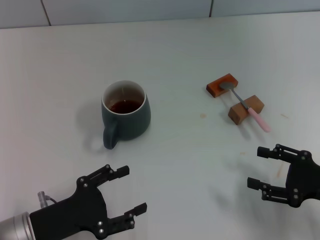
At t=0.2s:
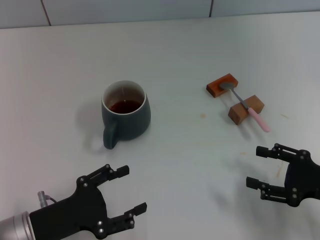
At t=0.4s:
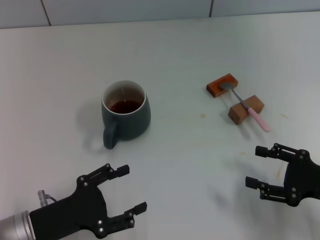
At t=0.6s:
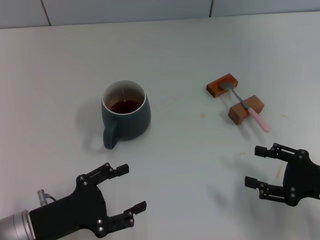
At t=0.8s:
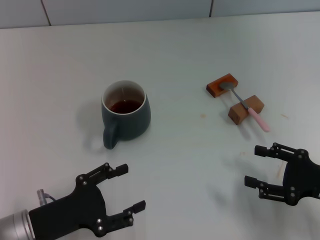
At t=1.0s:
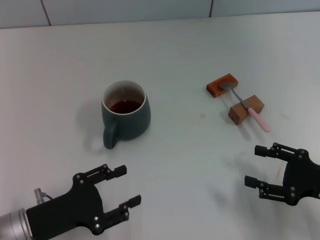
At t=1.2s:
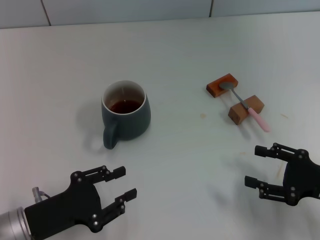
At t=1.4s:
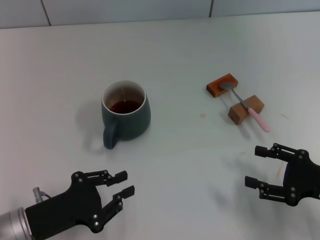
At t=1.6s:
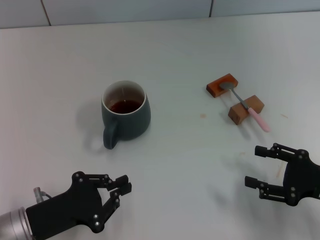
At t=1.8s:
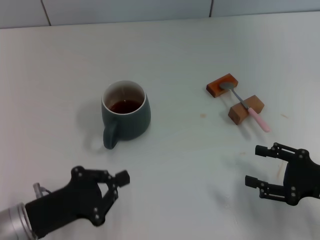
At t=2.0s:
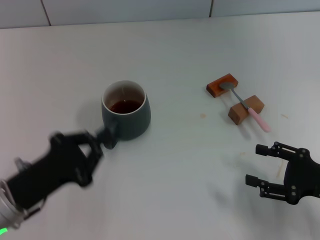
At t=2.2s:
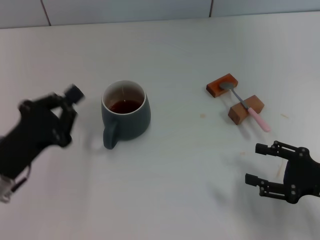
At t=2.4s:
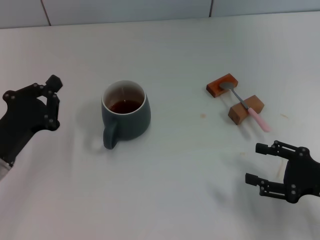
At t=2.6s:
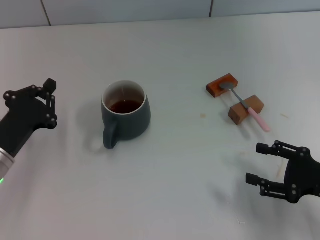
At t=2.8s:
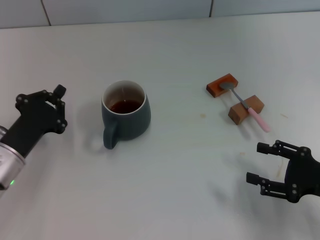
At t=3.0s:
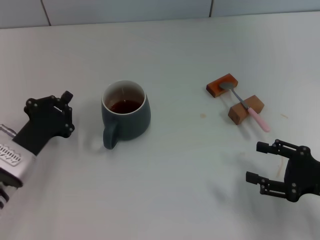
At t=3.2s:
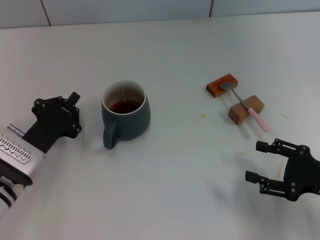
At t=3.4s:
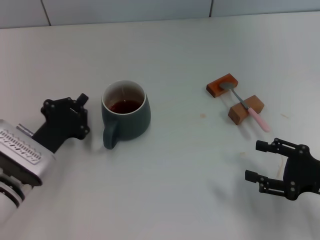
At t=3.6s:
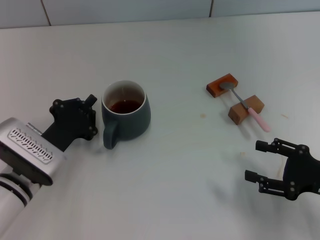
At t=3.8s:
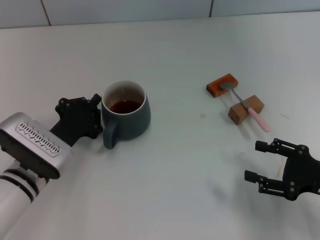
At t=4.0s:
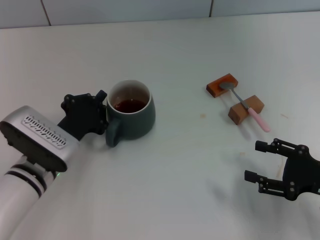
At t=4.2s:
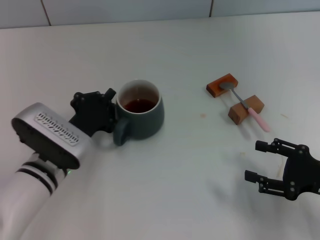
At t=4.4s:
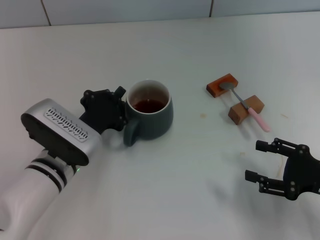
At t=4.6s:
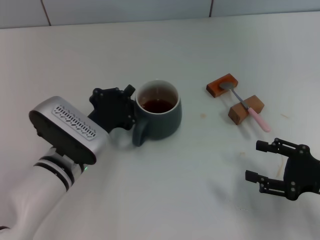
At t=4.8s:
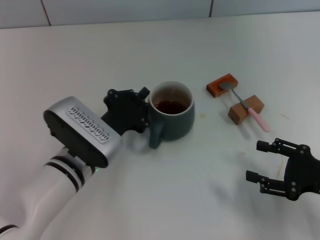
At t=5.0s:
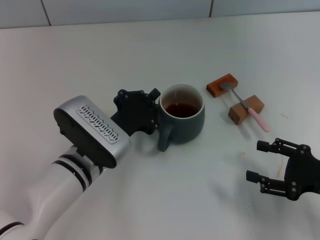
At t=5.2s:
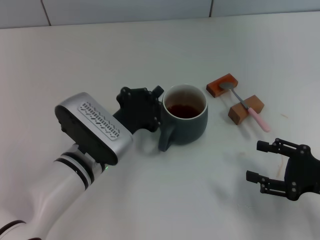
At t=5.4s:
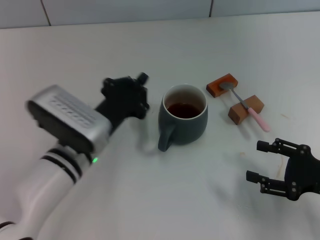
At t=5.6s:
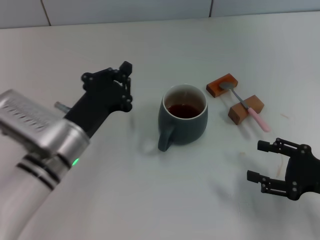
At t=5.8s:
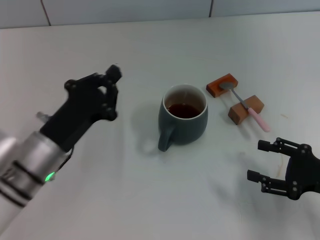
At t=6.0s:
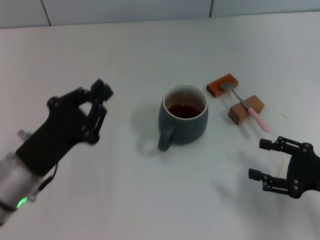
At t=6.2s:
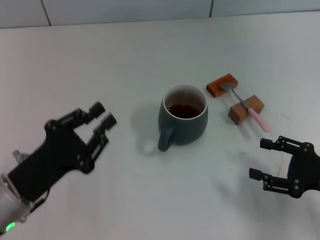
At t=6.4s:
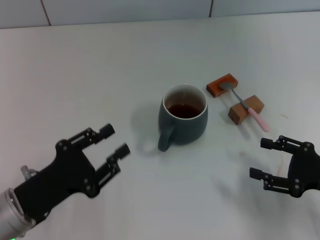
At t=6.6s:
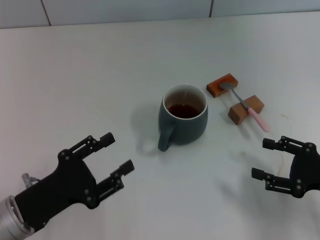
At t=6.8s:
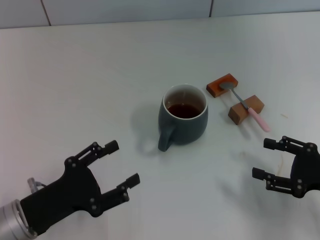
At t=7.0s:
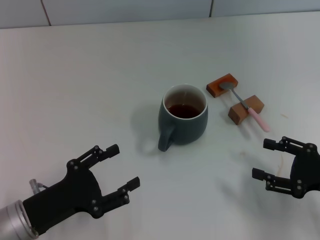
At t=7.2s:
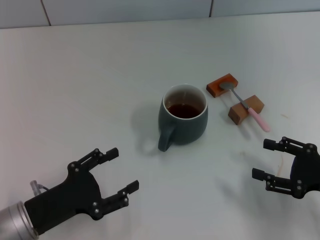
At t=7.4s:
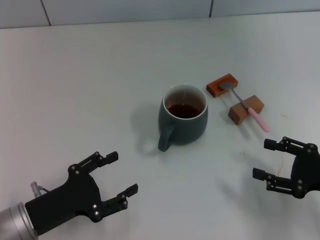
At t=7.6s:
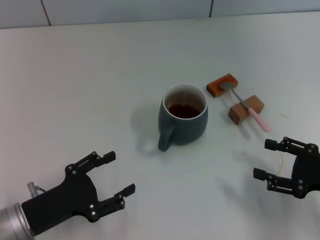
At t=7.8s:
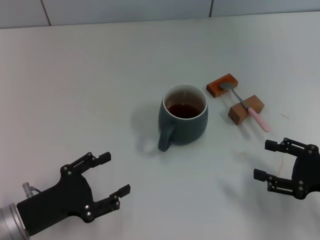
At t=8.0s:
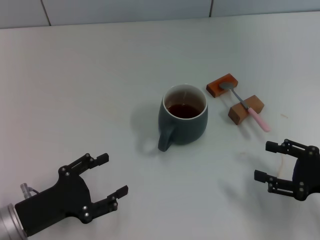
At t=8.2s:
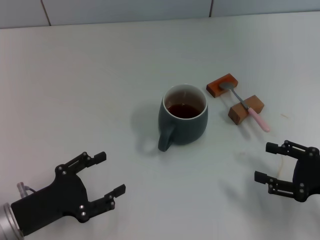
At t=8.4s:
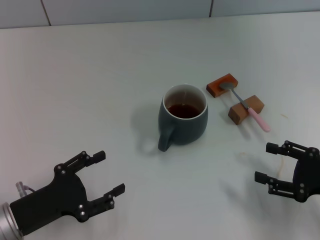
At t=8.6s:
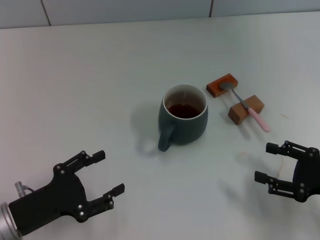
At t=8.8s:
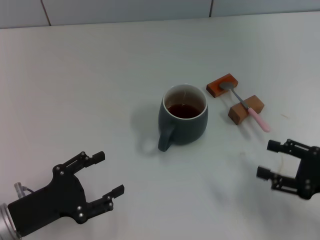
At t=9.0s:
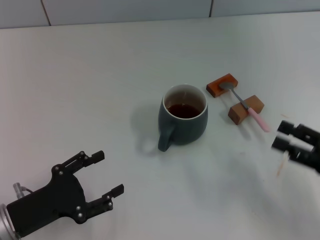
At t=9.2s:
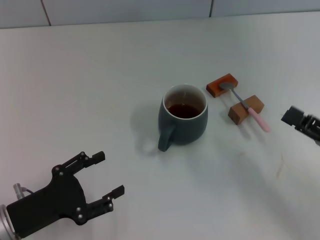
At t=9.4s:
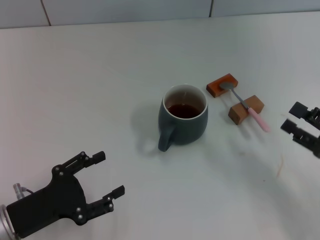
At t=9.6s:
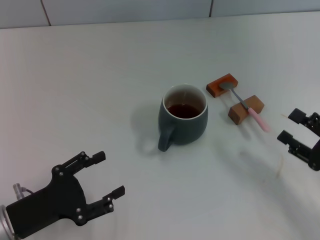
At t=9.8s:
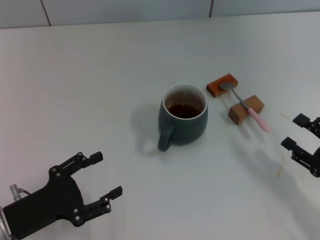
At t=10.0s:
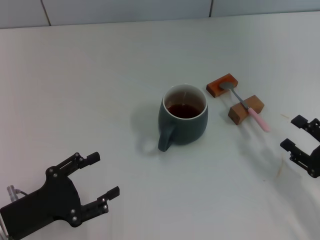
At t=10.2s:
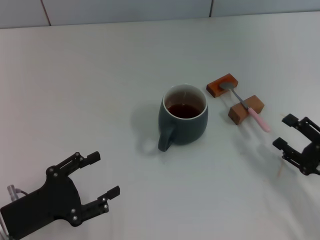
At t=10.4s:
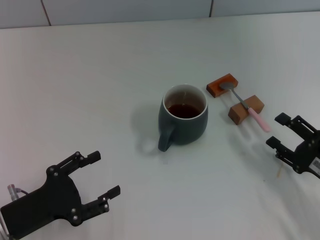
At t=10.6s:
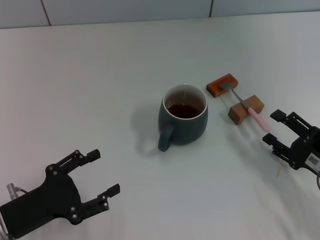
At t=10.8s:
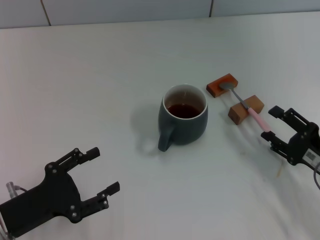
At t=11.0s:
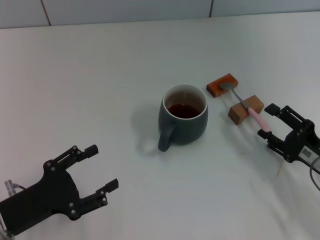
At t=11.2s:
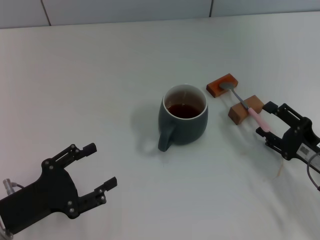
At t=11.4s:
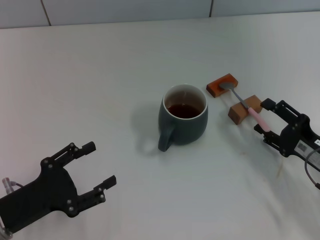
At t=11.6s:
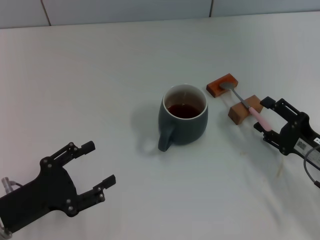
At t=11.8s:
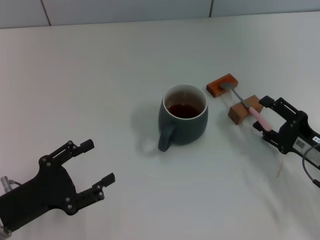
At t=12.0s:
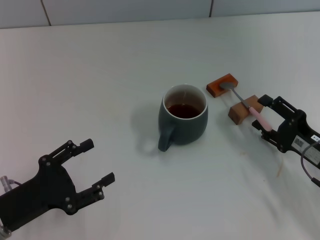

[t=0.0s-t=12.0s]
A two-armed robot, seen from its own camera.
Task of the whole recording: Move the grey cup to the center, lift the pink spoon, stir it three times in the cup, and put the spoon into the cup.
Step, t=0.0s to t=5.6s: Move the cup with coffee to the center of view with the left gripper.
t=0.0s to t=1.6s: The left gripper closes up.
t=1.6s to t=3.0s: The left gripper is displaced forward by some 10 cm.
t=3.0s to t=4.4s: The left gripper moves to the right, roughly 10 cm.
t=4.4s to t=6.0s: The left gripper moves to the left, some 5 cm.
t=6.0s to t=7.6s: The left gripper moves about 5 cm, and opens.
t=9.0s to t=10.4s: The right gripper shifts approximately 5 cm downward.
t=10.4s to t=12.0s: The grippers make only small movements.

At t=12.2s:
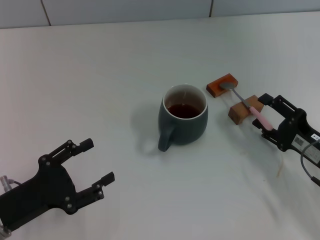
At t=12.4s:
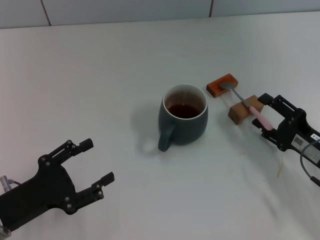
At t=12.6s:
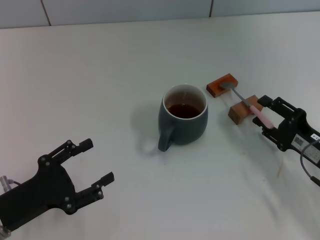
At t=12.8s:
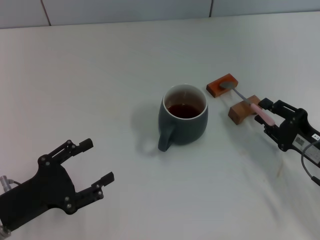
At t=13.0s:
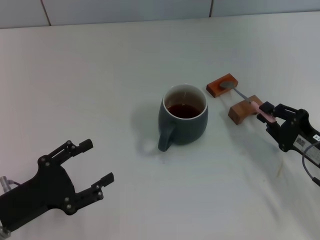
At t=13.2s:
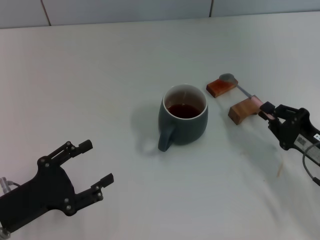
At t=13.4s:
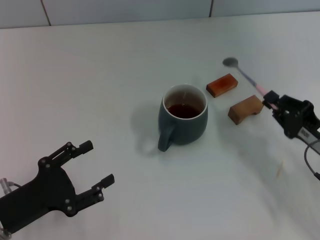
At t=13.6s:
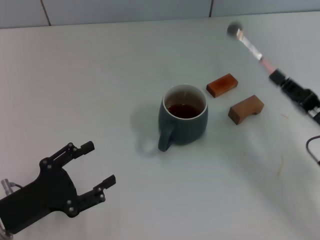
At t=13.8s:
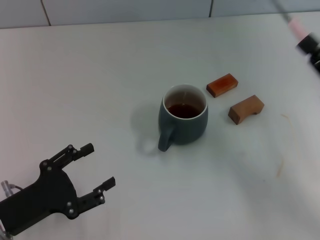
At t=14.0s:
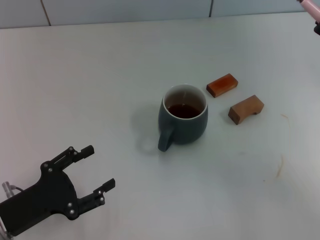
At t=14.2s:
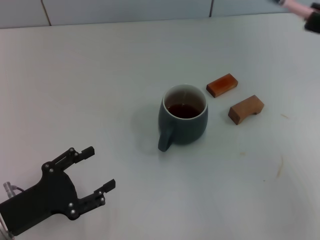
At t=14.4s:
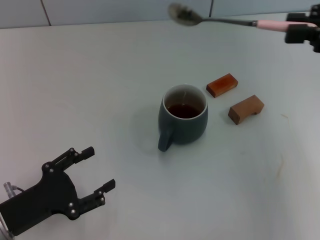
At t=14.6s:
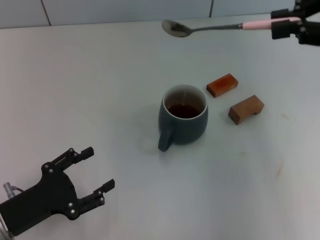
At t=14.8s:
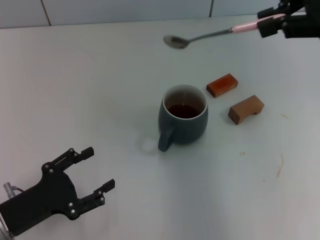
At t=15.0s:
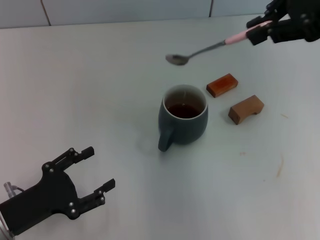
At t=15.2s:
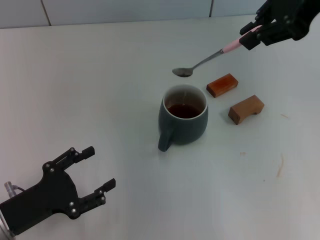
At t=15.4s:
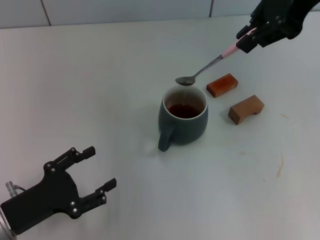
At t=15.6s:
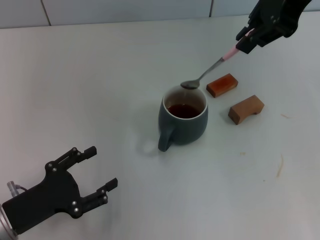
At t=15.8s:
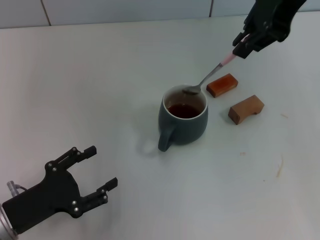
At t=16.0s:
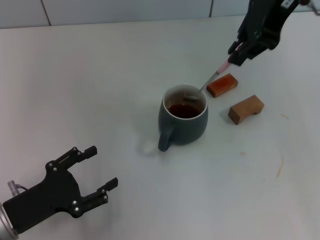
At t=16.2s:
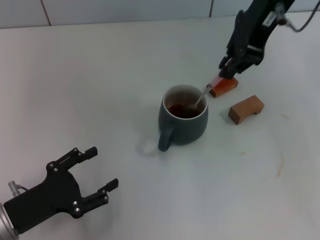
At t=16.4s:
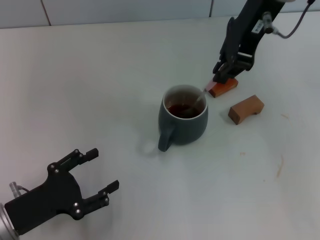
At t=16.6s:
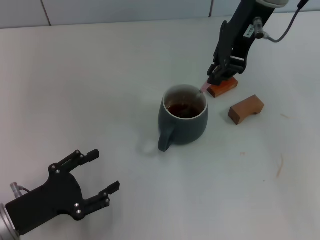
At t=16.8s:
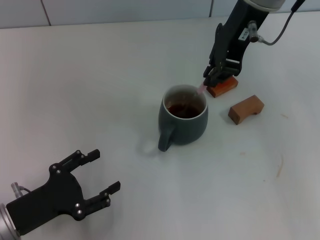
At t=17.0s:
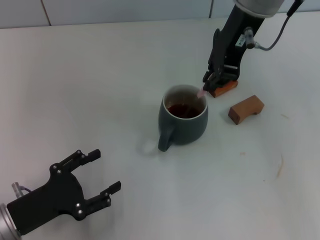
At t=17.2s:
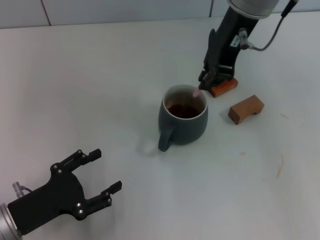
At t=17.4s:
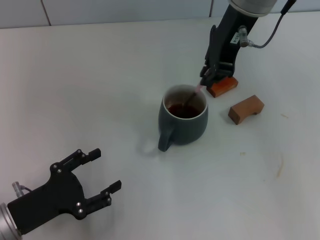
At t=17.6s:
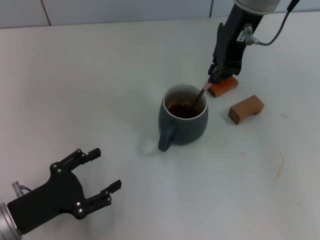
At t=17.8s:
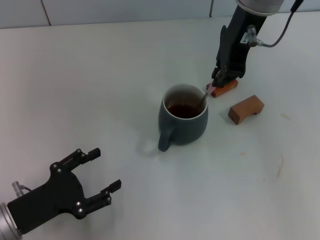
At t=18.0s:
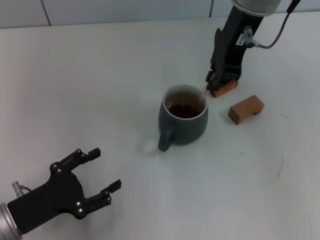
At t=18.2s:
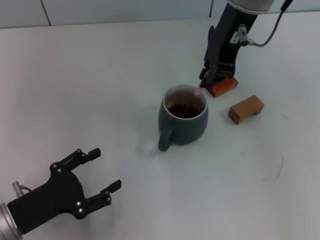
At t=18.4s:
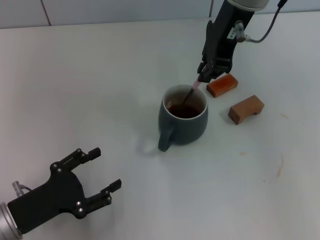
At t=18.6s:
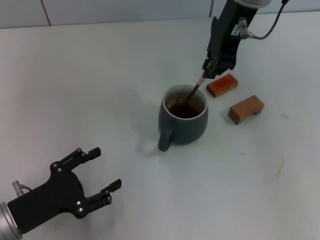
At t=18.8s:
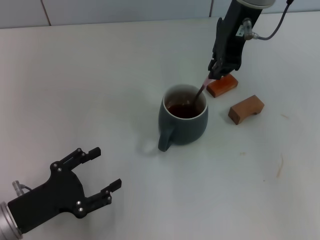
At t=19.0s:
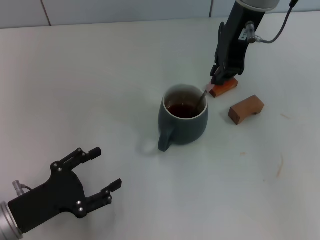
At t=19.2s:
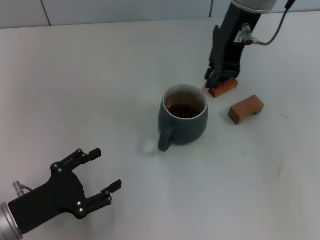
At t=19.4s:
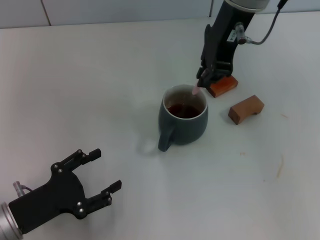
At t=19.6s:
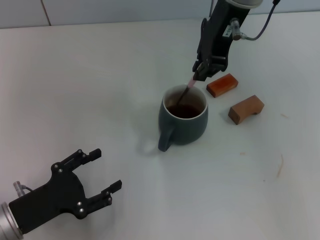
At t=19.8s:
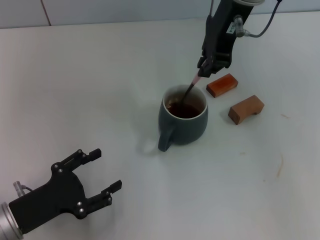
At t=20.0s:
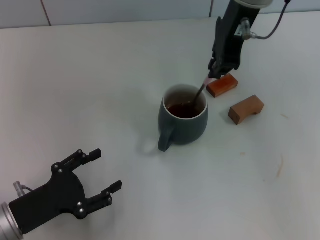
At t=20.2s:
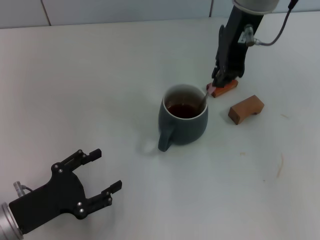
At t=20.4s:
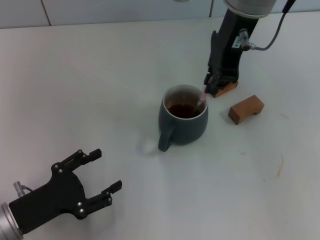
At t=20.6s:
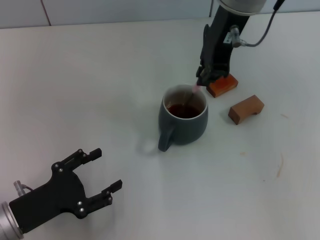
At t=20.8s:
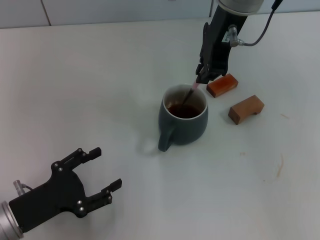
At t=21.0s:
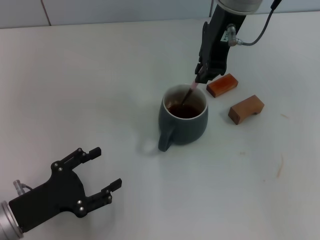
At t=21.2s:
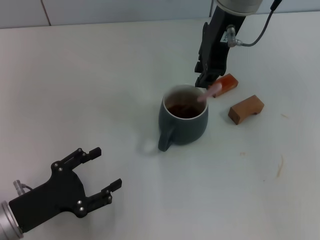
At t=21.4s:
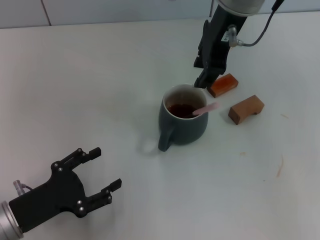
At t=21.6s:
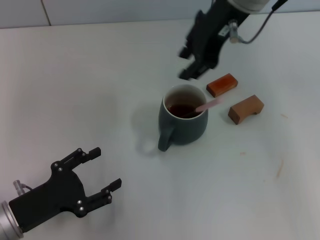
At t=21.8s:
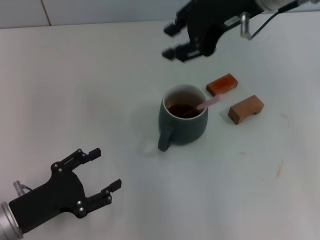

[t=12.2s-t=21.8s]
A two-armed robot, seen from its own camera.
Task of the whole recording: Move the grey cup to the center, lift the pink spoon, stir it three times in the cup, and put the spoon into the cup.
Step, t=13.6s to t=21.4s: Stir the coffee in the cup with the right gripper.
t=12.2s to t=13.8s: The right gripper heads upward, covering some 10 cm, and closes its fingers.
t=13.8s to t=15.4s: The right gripper shifts roughly 30 cm upward, forward and to the left.
t=15.4s to t=17.0s: The right gripper travels to the left and downward by approximately 10 cm.
t=17.0s to t=18.6s: The grippers move only a little.
t=18.6s to t=20.2s: Both grippers stay put.
t=20.2s to t=21.8s: The right gripper moves roughly 5 cm, and opens.
